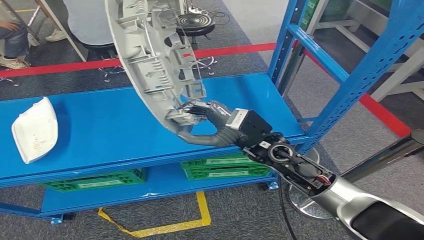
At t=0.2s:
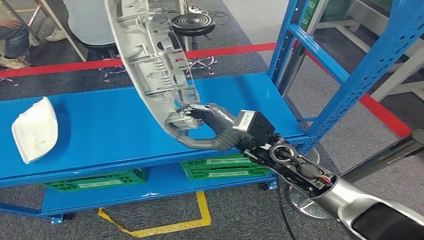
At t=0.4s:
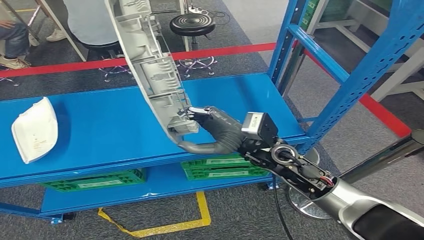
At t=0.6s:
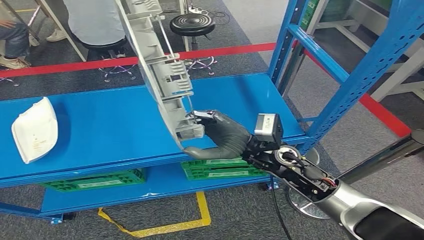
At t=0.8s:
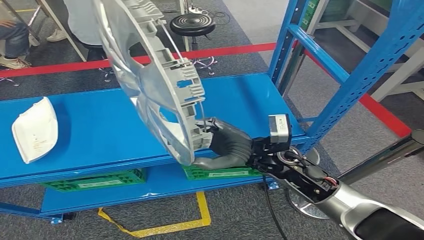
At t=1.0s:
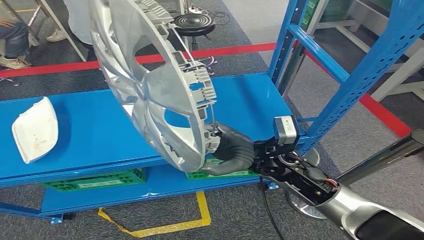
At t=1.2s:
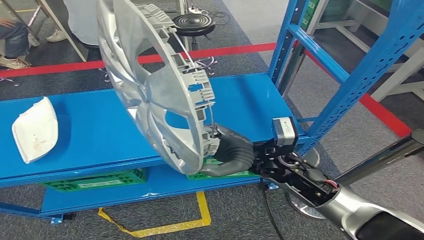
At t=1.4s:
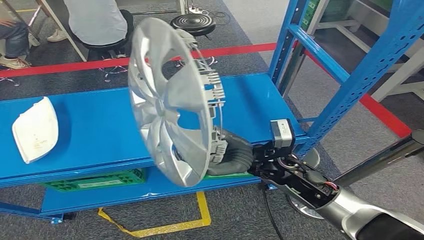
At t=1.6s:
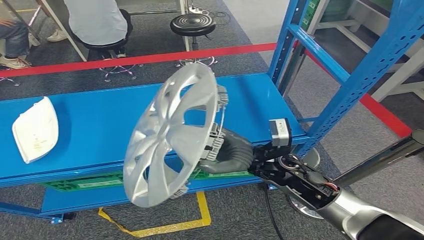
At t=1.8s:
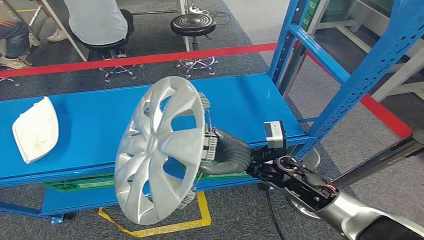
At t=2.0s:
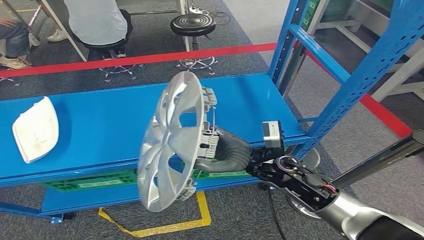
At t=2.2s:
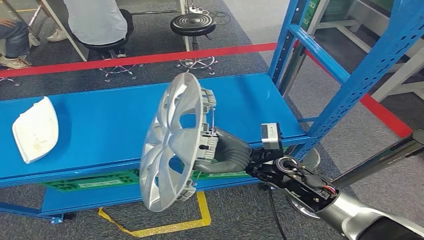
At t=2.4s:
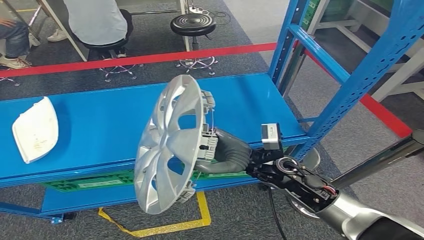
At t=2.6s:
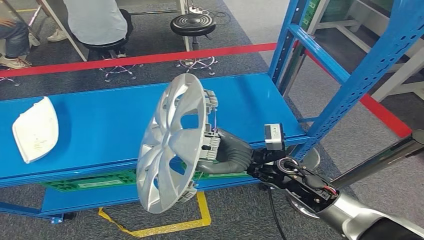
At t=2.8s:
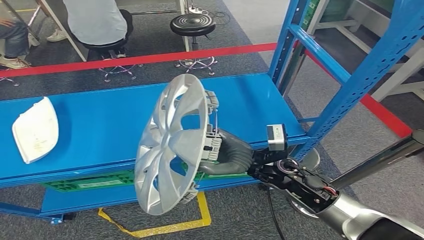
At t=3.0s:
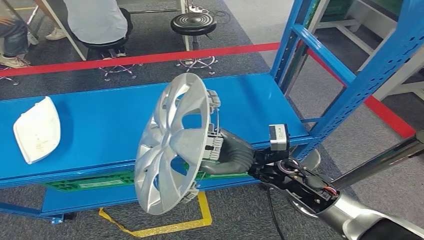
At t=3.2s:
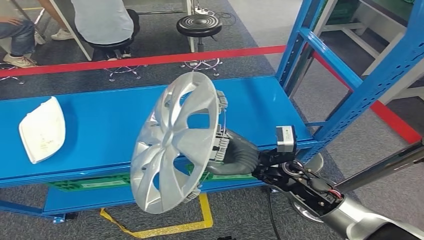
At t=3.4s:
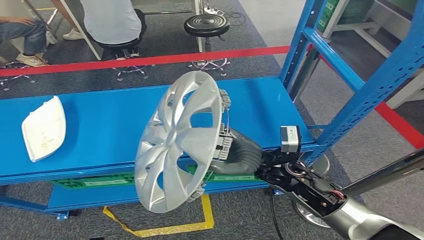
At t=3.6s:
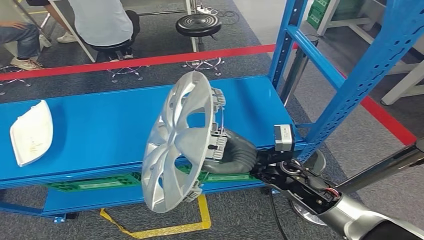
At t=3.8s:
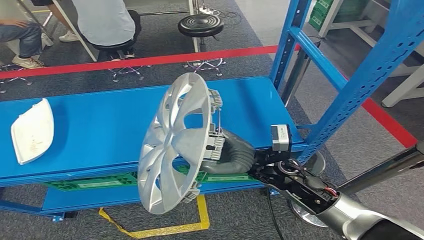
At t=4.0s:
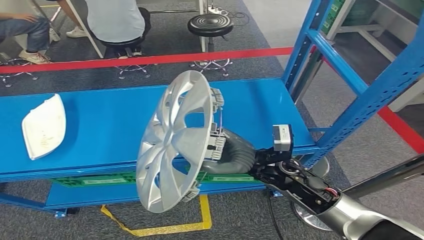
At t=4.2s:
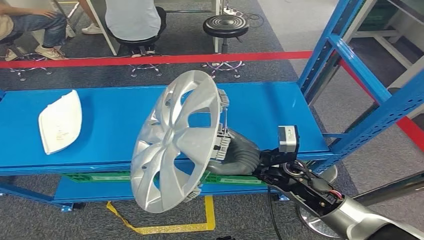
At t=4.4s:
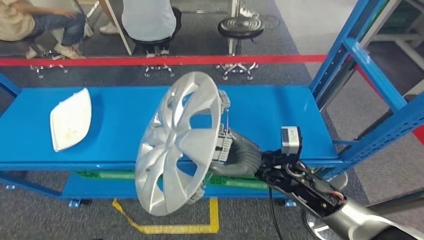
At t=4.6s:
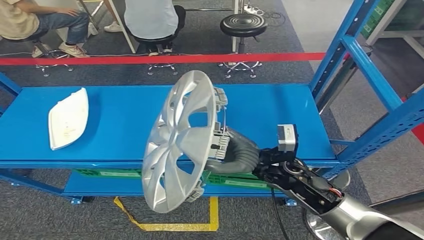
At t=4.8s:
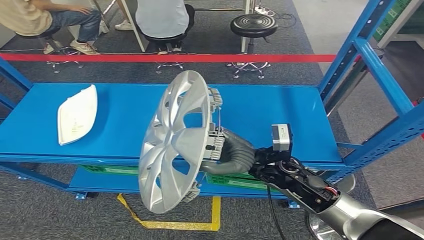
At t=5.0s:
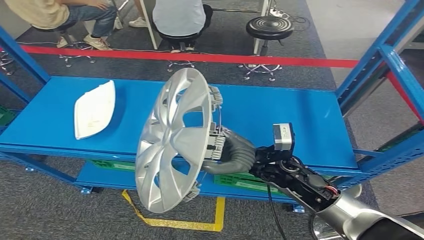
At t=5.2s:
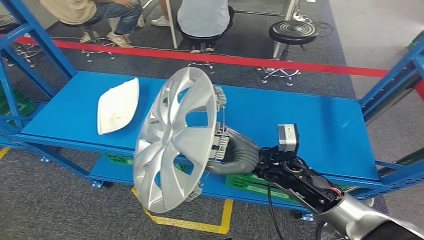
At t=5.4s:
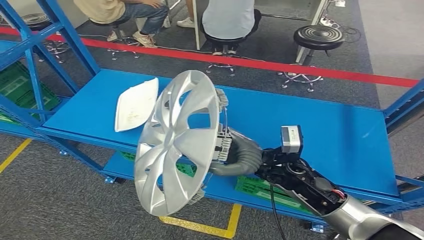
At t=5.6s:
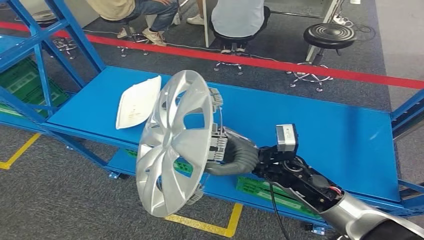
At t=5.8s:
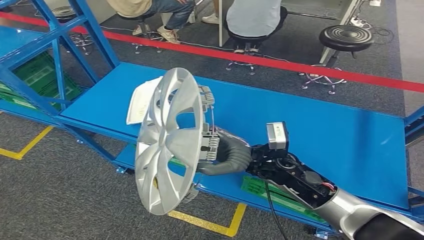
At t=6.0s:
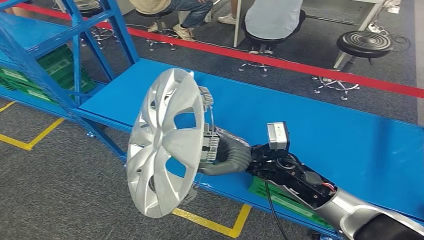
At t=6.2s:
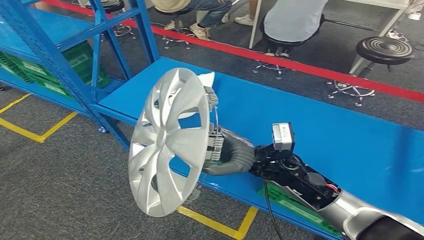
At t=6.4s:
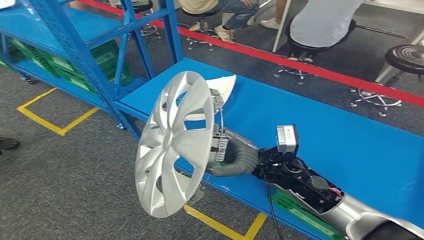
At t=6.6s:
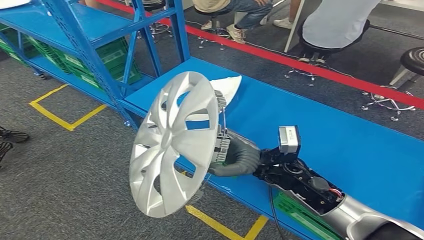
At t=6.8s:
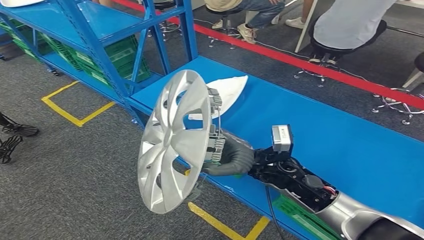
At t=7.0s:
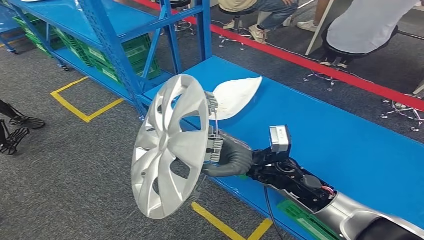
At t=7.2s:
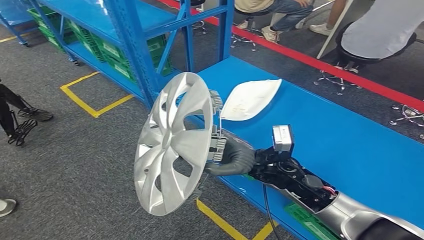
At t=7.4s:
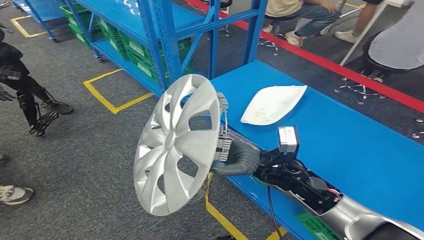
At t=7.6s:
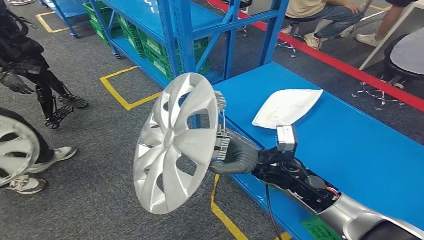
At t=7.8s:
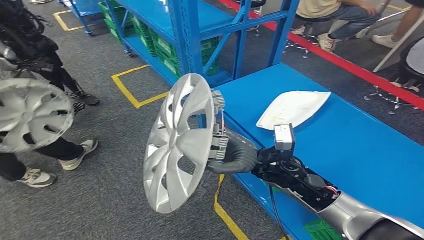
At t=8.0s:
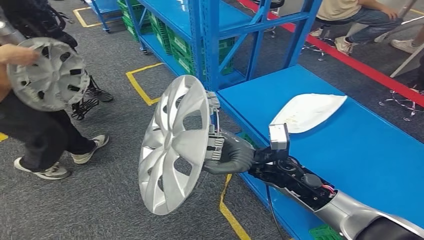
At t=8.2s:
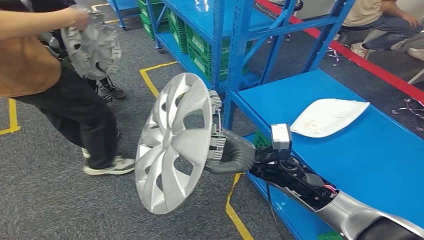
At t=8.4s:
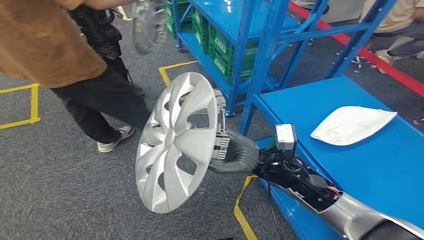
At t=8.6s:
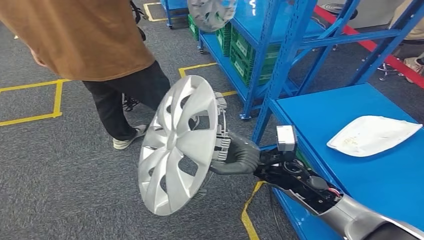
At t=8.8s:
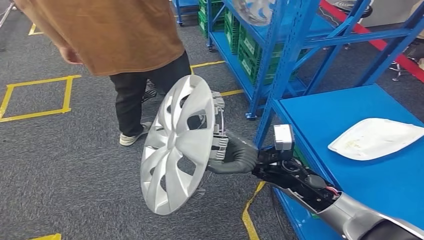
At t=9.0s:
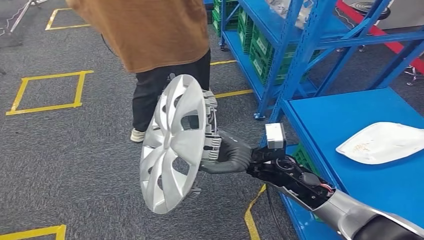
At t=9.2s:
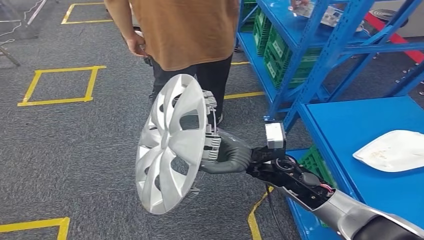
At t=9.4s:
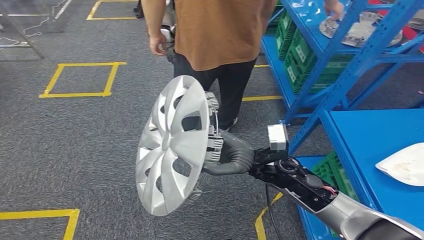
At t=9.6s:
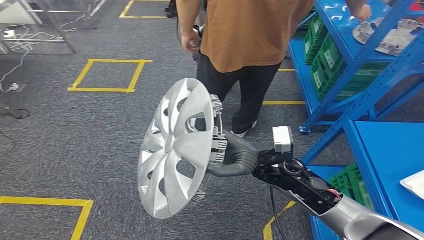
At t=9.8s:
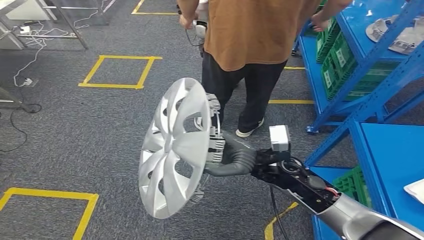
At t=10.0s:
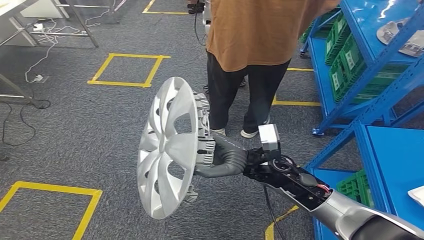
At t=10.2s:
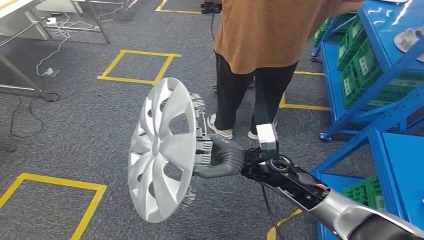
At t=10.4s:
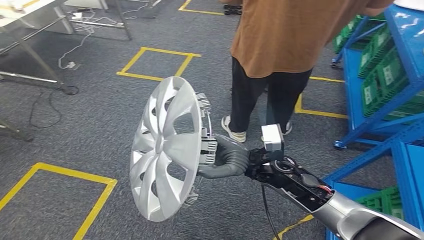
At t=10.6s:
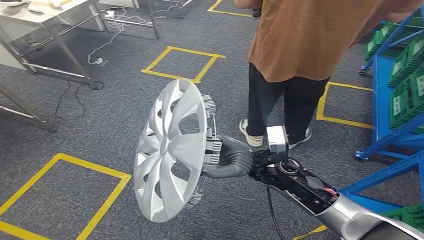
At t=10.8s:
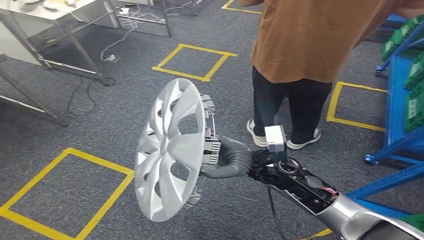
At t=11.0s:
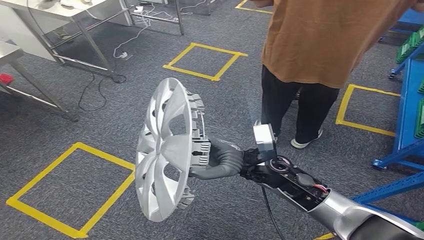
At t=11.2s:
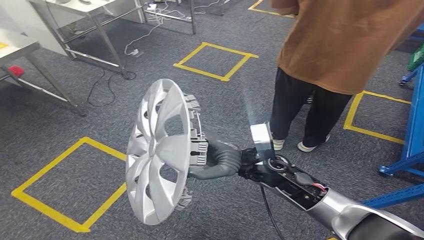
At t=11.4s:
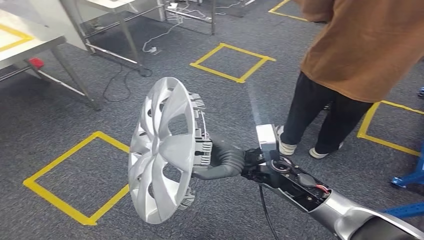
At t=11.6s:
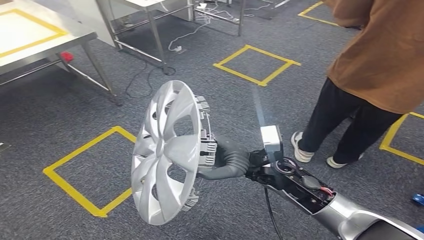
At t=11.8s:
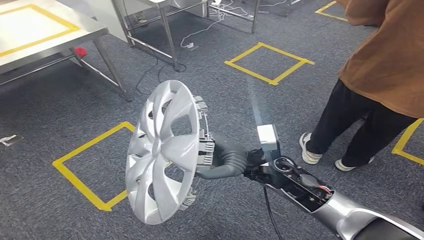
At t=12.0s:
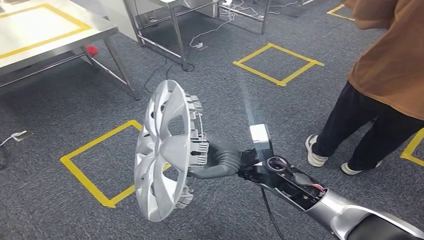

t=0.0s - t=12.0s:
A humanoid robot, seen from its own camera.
t=1.6s - t=3.0s: The hands stay close to where they were, moving slightly.

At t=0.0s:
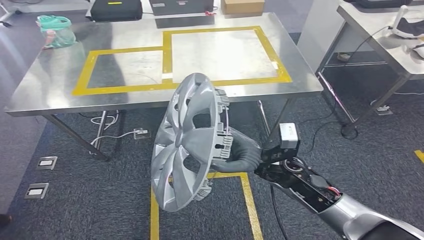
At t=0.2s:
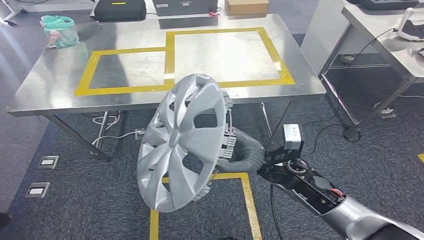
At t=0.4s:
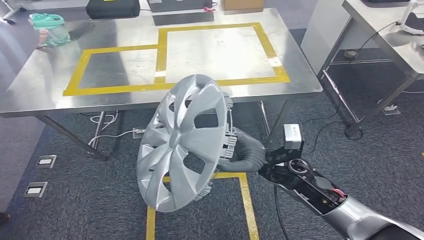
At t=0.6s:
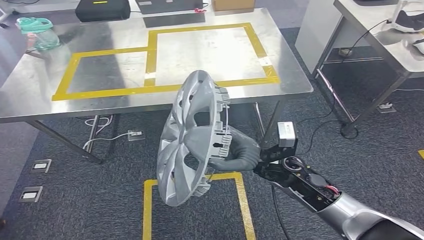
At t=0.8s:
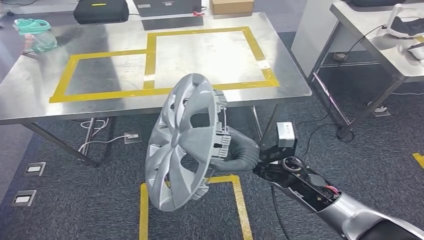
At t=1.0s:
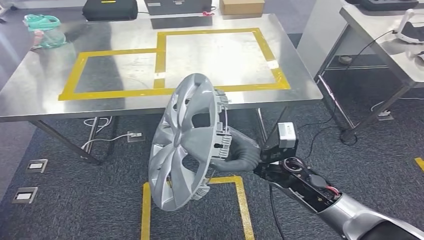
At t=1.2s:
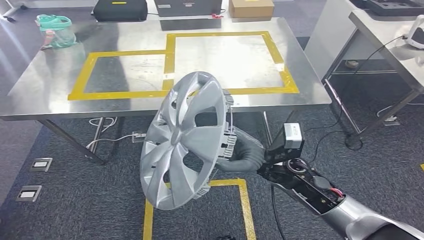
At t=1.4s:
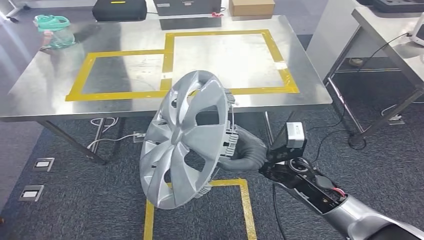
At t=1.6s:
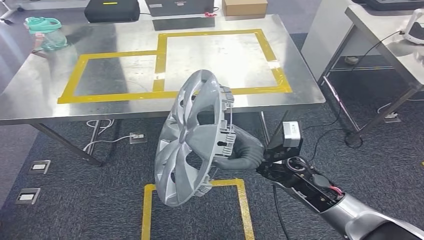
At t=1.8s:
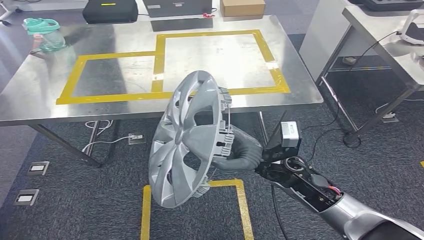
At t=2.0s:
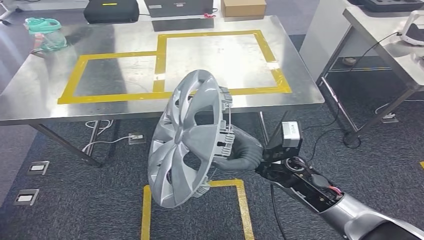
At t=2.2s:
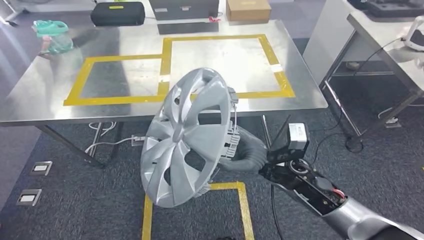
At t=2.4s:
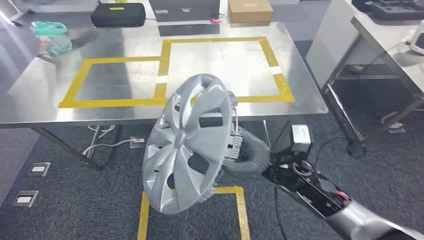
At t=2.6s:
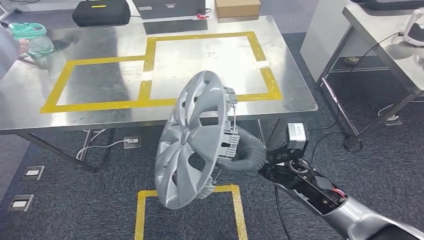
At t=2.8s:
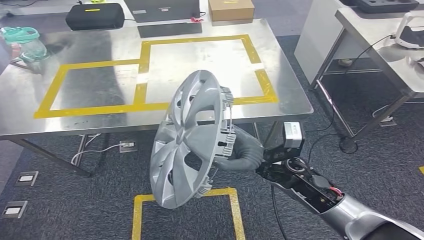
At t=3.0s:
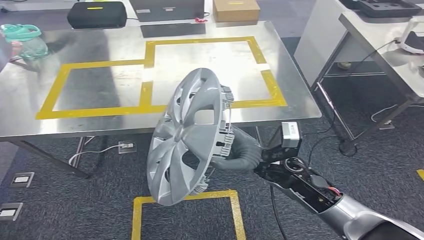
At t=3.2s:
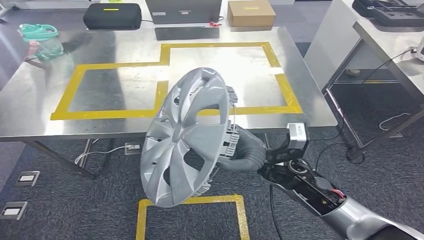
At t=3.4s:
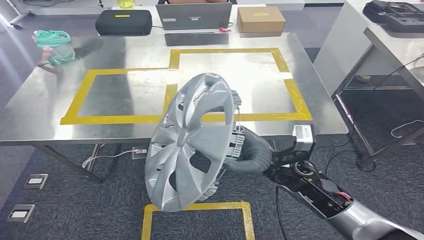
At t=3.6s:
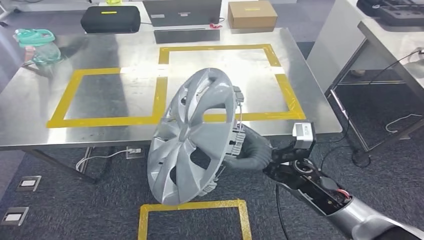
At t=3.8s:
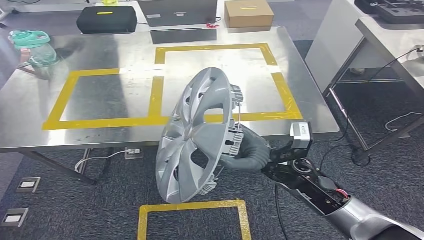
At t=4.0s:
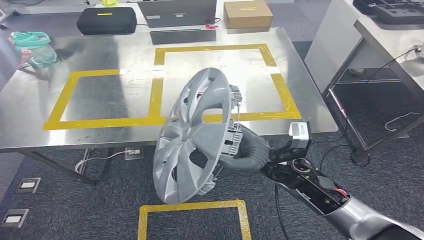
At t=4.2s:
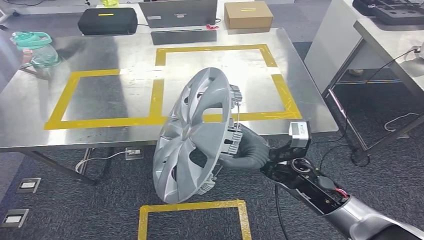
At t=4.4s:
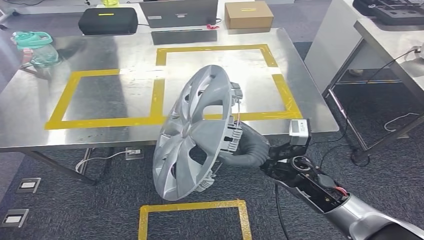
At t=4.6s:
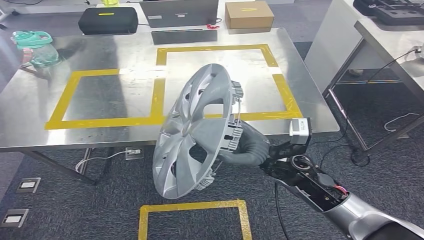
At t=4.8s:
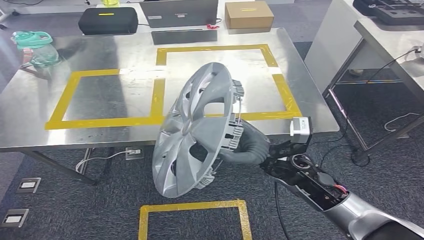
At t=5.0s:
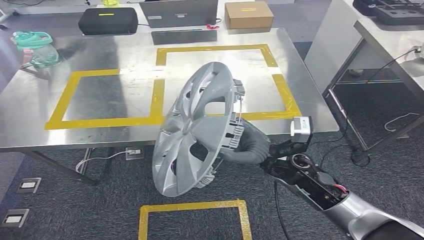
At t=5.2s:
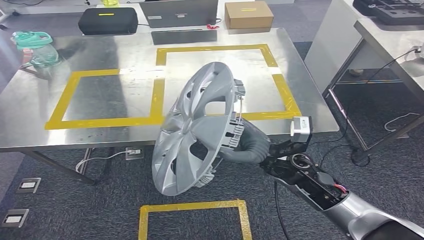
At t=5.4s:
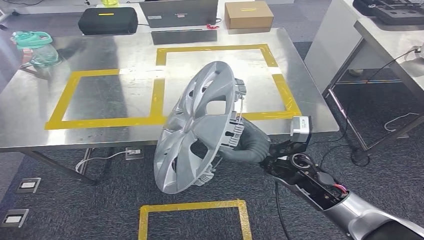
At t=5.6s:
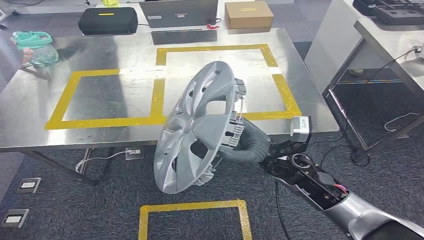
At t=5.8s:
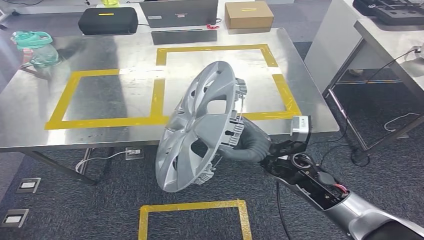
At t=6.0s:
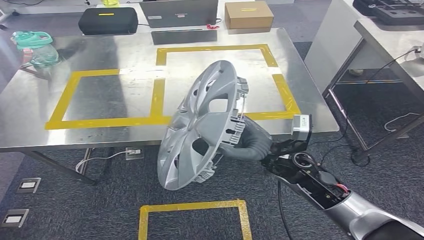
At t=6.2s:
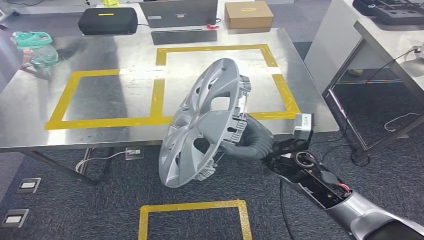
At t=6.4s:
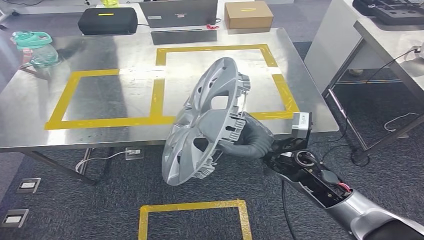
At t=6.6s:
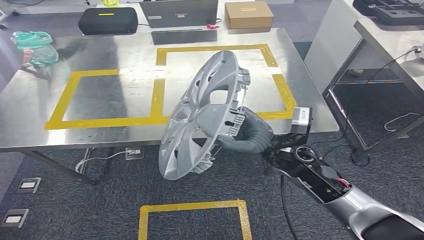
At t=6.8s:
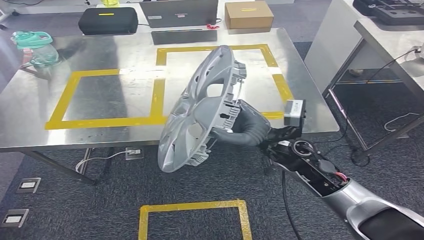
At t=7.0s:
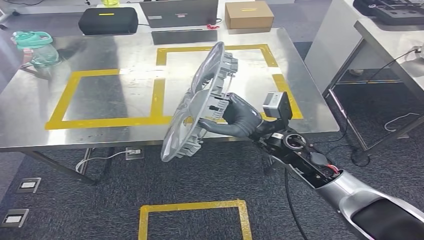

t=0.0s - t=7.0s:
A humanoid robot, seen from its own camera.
Step, t=0.0s - t=7.0s: Move the small component to the workbench.
t=4.2s - t=5.6s: Both hands stay about where they are.
t=5.6s - t=7.0s: The right hand changes place by roughly 5 cm.
